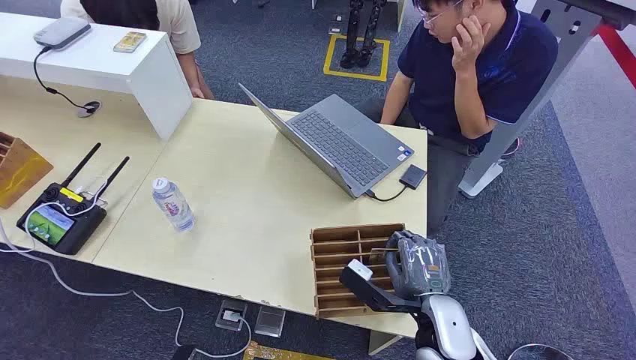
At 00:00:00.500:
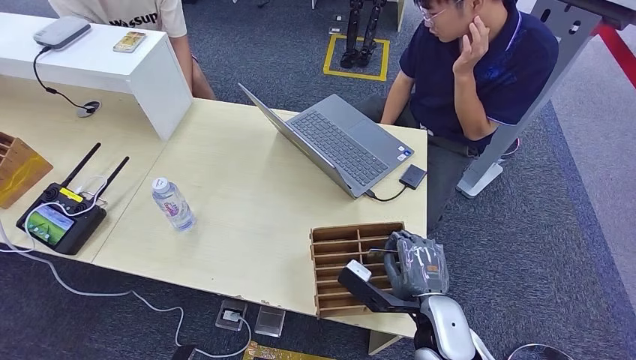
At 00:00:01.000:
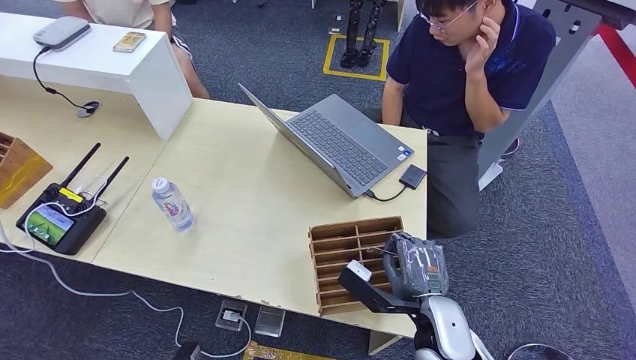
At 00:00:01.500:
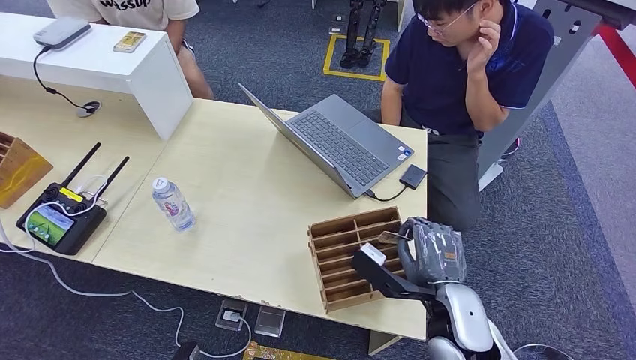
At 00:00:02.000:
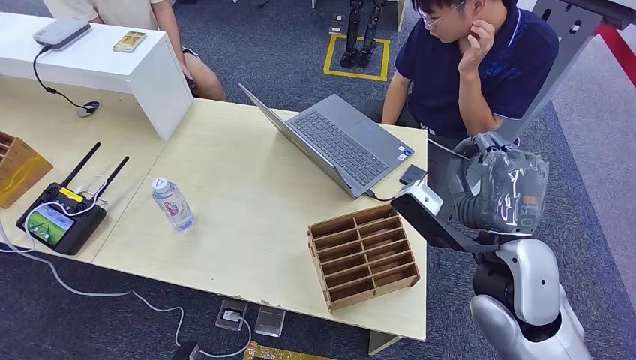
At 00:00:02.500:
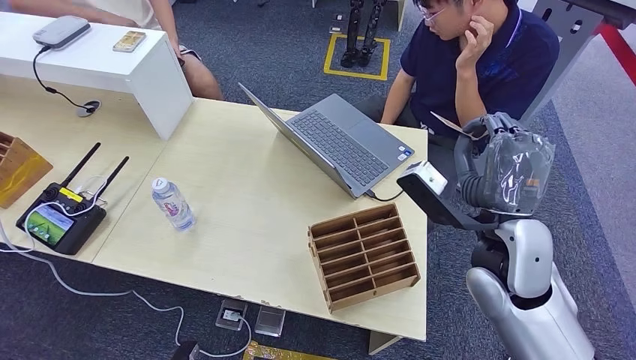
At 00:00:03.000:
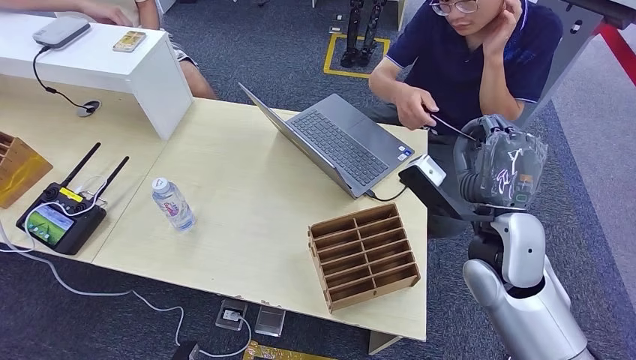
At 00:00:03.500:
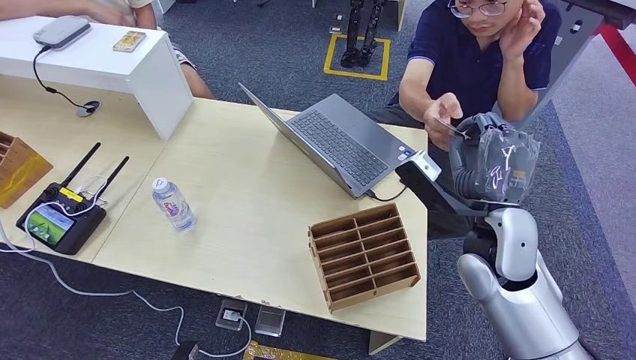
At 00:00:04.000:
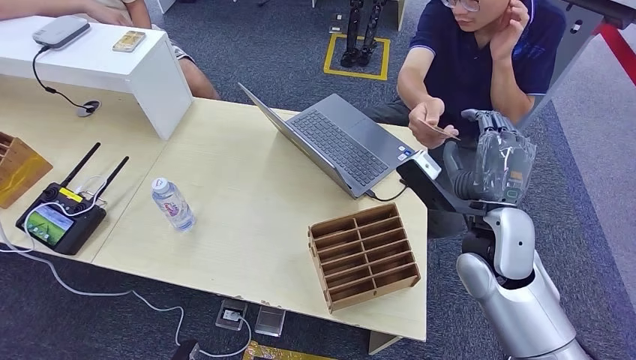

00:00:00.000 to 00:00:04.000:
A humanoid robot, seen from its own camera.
Step, 00:00:00.000 to 00:00:01.500: Pick up the room card from the card holder.
Step, 00:00:02.500 to 00:00:04.000: Hand the room card to the target.
00:00:02.000 to 00:00:04.000: The right hand is displaced forward by roughly 5 cm.

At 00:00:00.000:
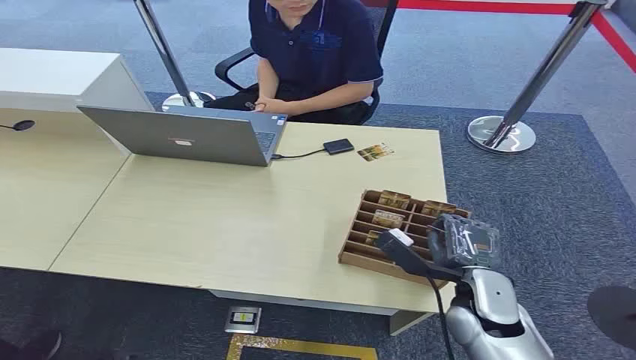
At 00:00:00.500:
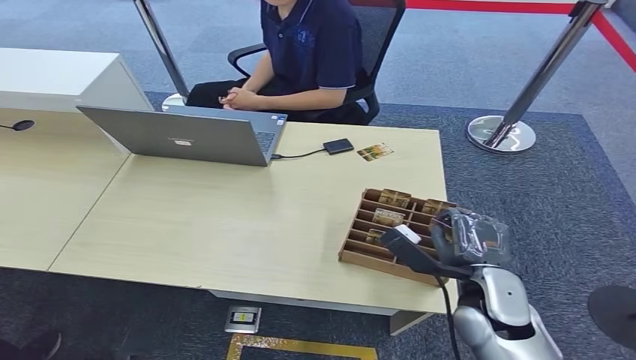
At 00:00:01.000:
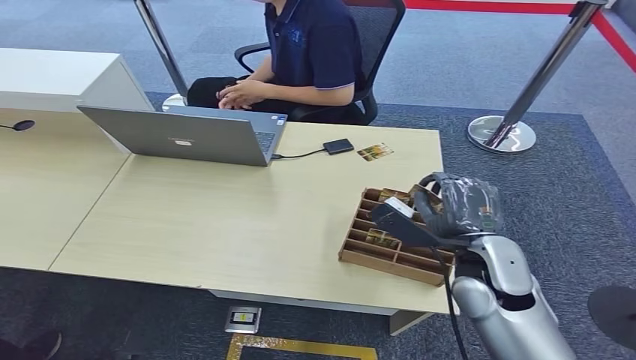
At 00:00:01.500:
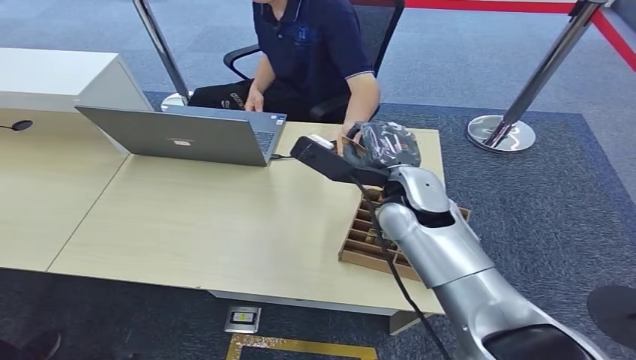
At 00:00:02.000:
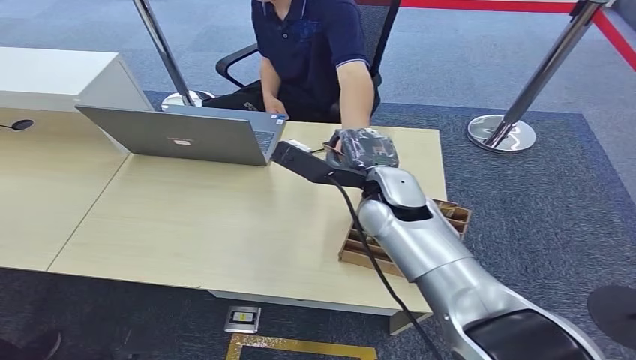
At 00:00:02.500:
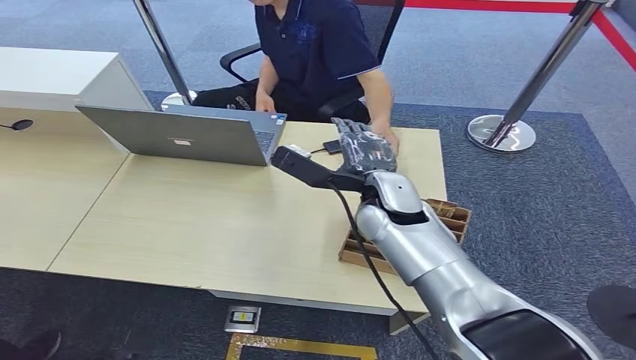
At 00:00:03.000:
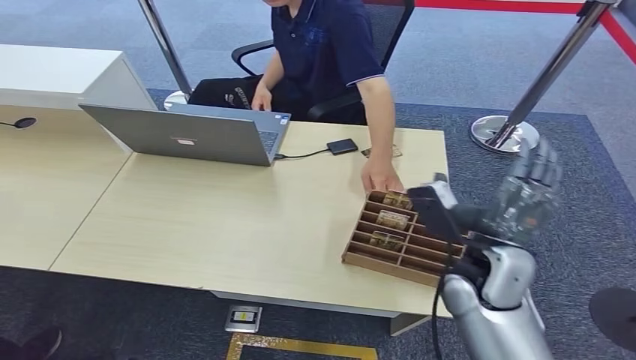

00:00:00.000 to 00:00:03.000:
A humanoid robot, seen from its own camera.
Step, 00:00:00.000 to 00:00:01.000: Pick up the room card from the card holder.
Step, 00:00:01.500 to 00:00:03.000: Hand the room card to the target.
00:00:01.500 to 00:00:03.000: The right hand travels backward, to the right and downward by roughly 15 cm.
